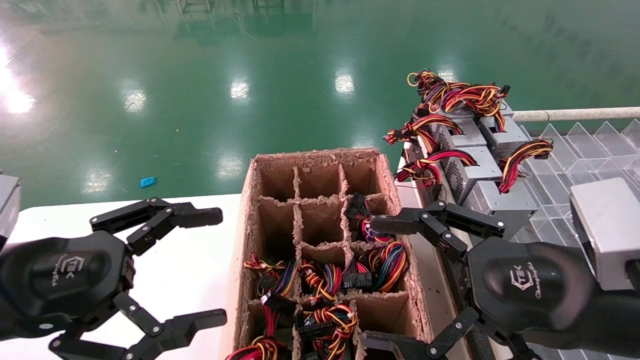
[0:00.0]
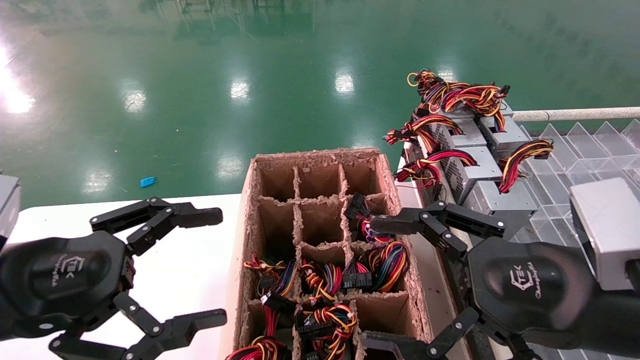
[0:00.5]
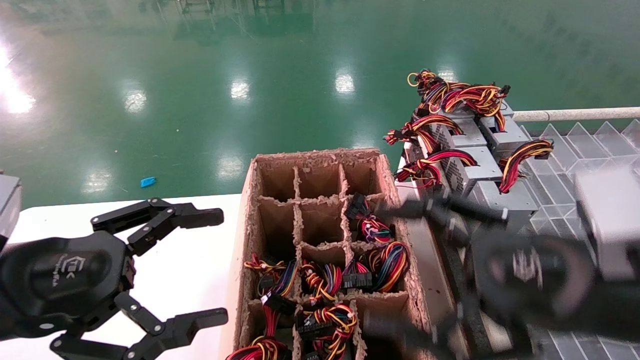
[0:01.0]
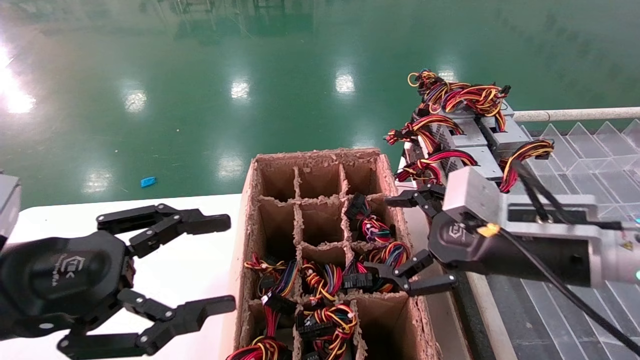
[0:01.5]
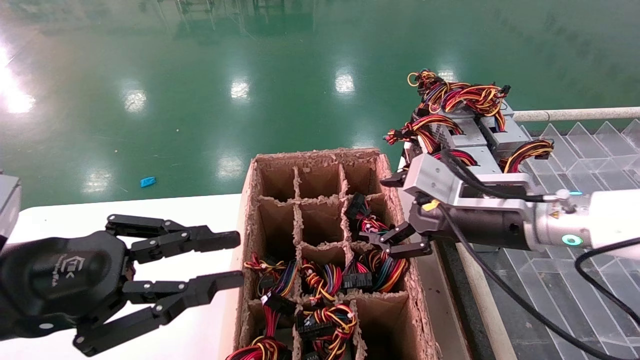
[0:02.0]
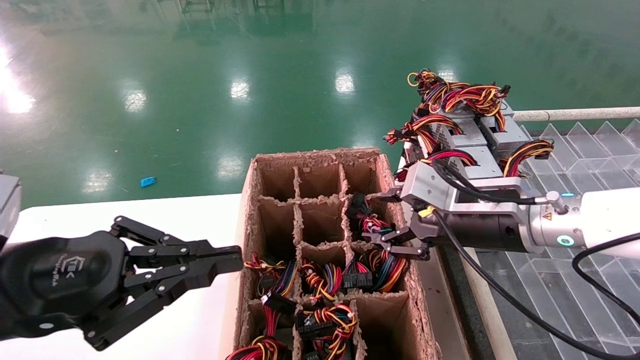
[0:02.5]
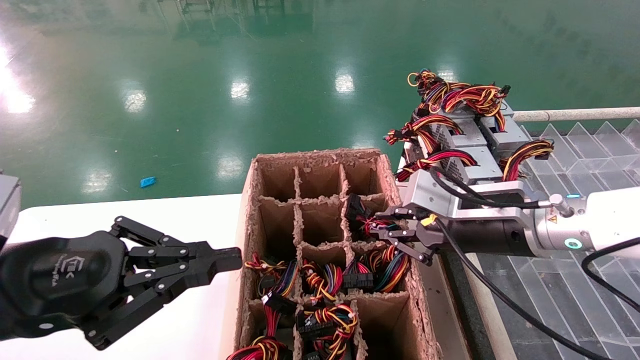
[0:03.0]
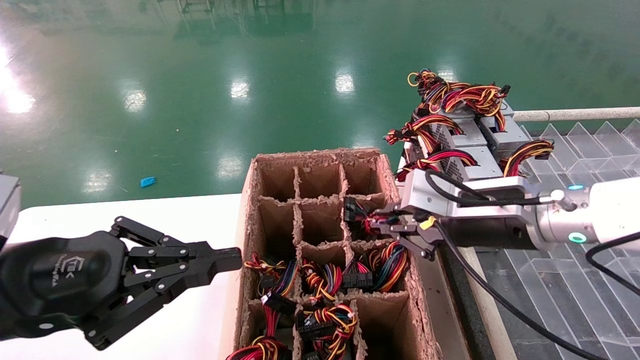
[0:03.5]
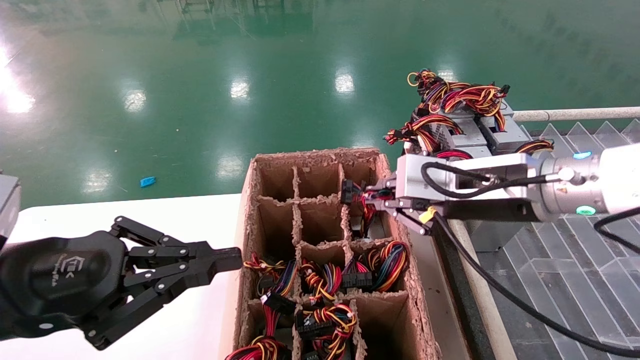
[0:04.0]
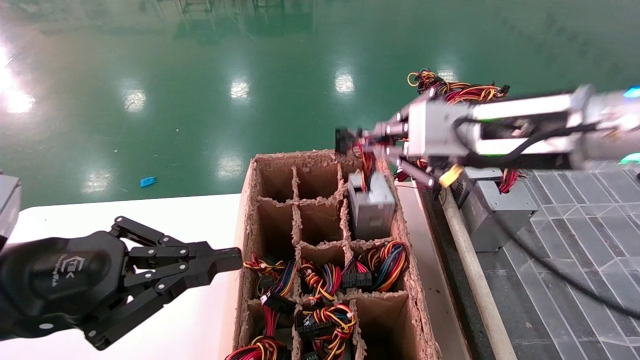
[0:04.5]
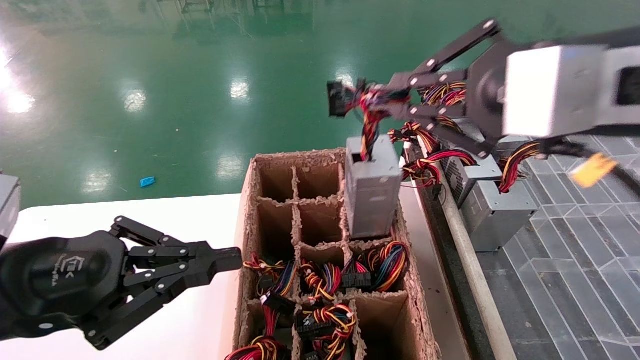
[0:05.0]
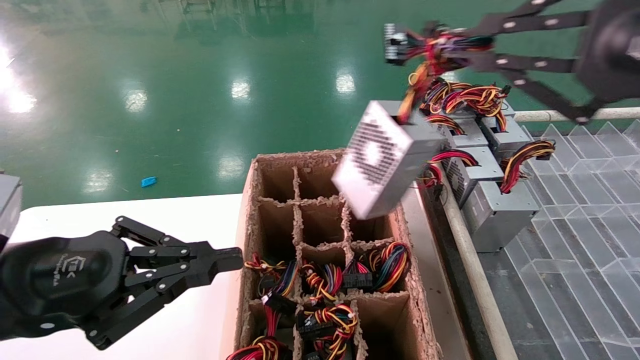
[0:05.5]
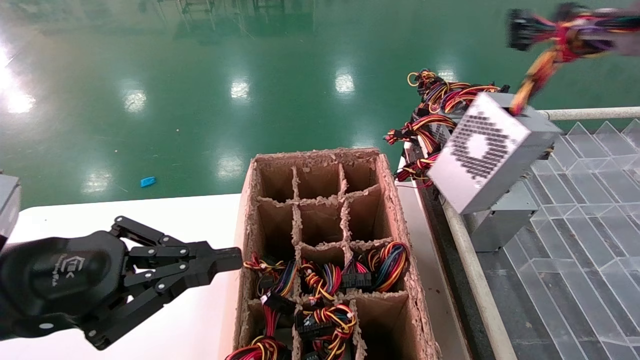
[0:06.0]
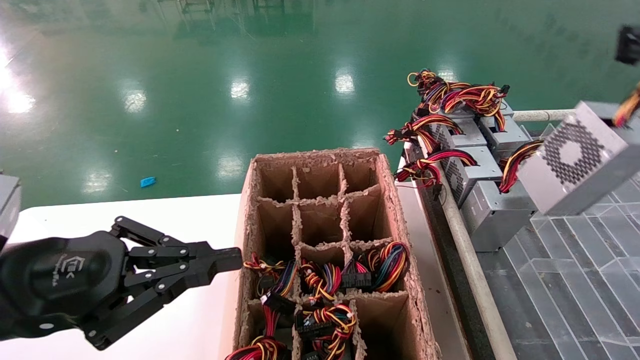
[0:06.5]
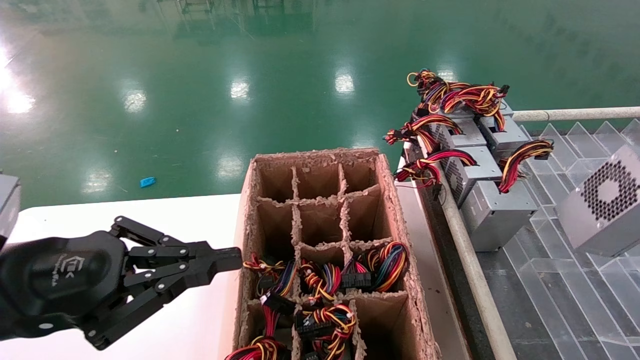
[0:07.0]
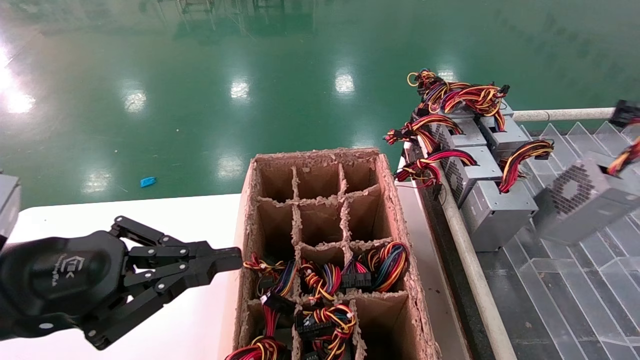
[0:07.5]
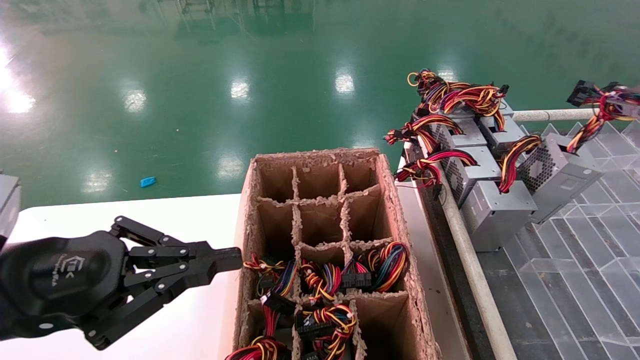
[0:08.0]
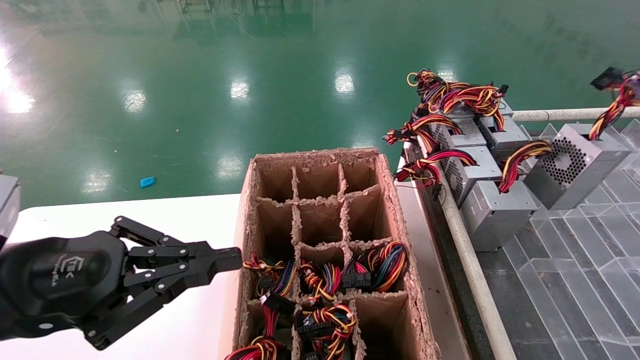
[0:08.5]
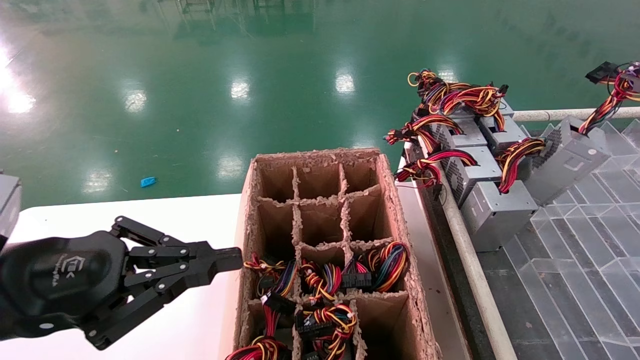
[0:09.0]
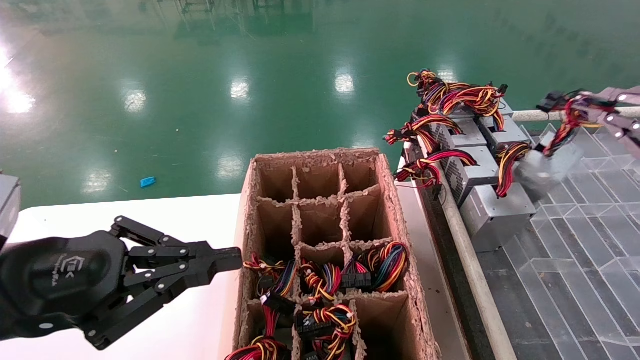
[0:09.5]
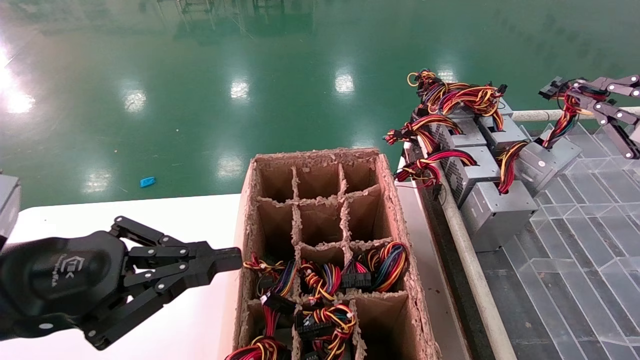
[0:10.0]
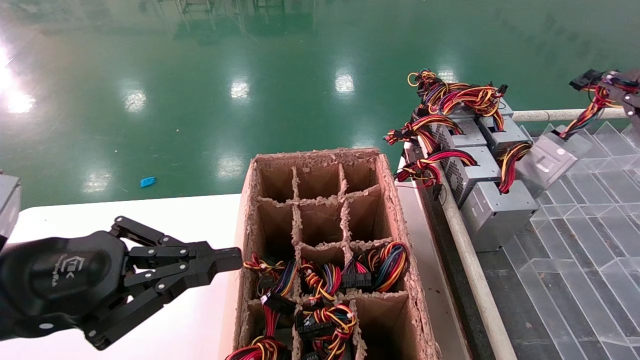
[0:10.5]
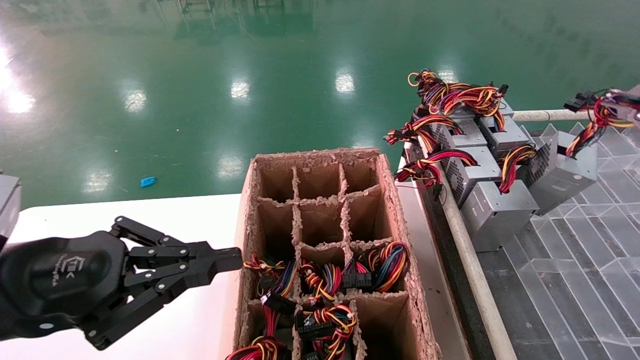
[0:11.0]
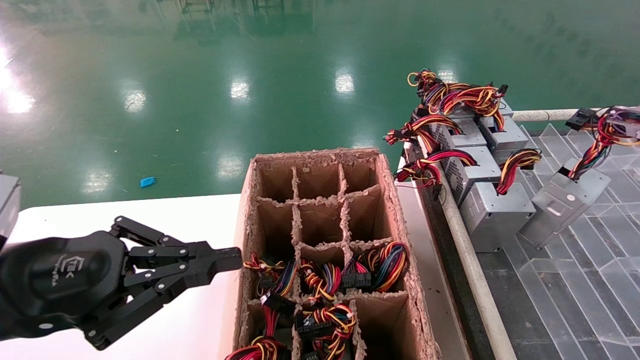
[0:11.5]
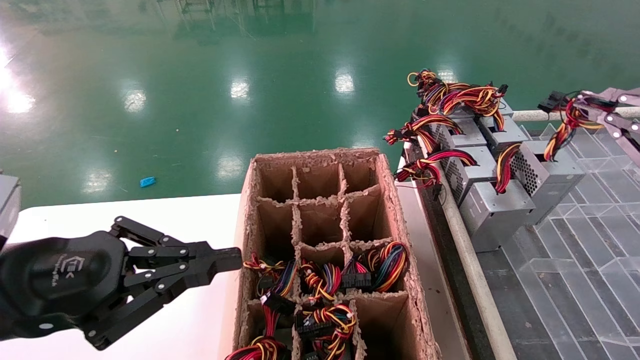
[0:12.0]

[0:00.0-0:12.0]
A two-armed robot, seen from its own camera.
Step, 0:01.5 to 0:03.0: Grab the main unit power supply from the containment box.
0:00.0 to 0:02.0: The right gripper moves forward, approximately 15 cm. The left gripper closes.
0:02.0 to 0:04.0: The right gripper is displaced upward by roughly 5 cm, and closes, while the left gripper closes.
0:04.0 to 0:06.0: The right gripper is displaced backward, to the right and upward by approximately 30 cm.
0:06.0 to 0:08.0: The right gripper goes approximately 15 cm forward, to the right and downward.
0:08.0 to 0:10.0: The right gripper ends up approximately 5 cm from where it was.

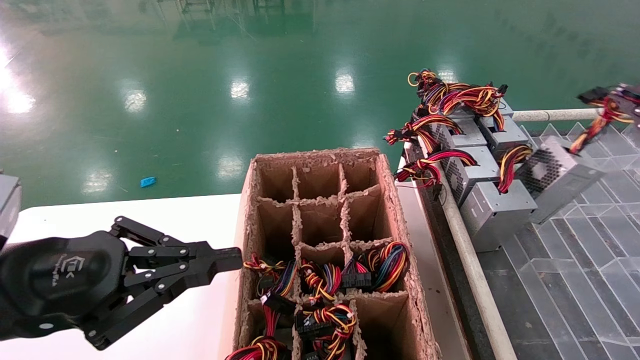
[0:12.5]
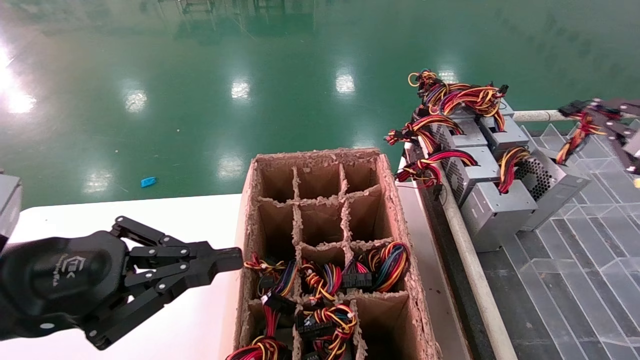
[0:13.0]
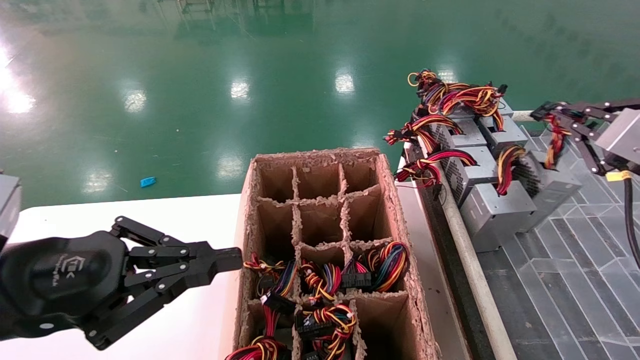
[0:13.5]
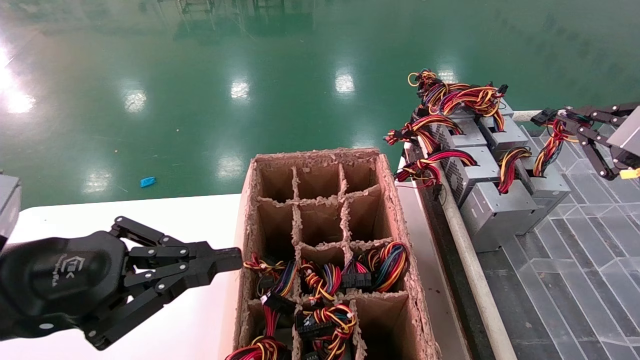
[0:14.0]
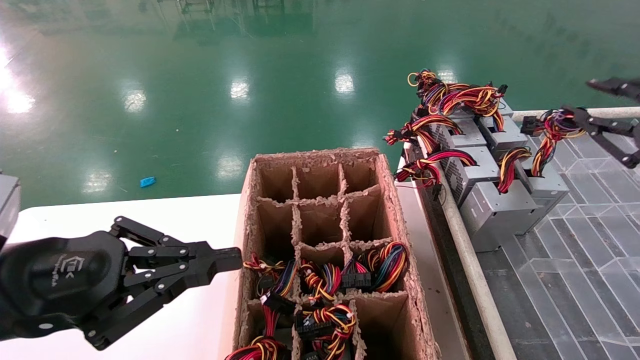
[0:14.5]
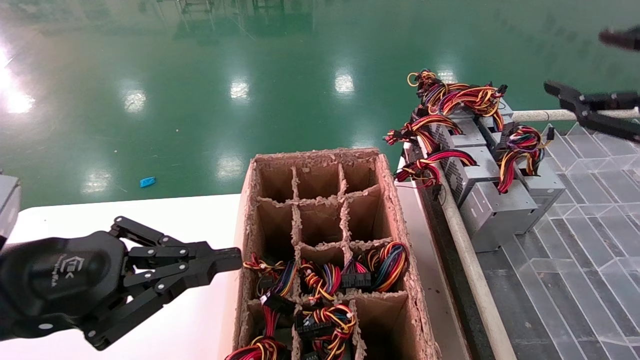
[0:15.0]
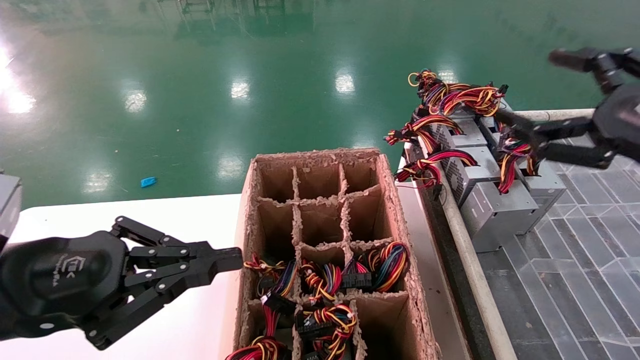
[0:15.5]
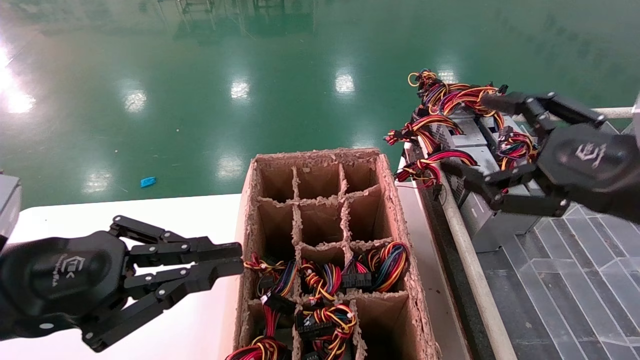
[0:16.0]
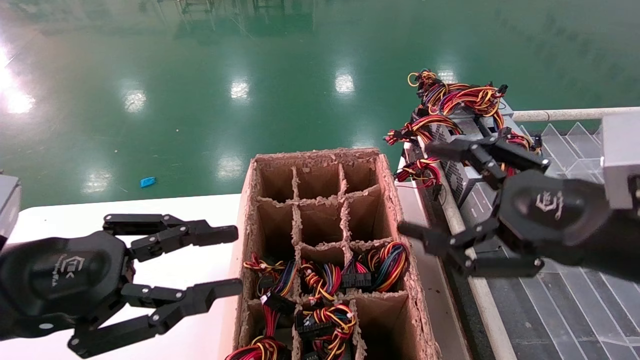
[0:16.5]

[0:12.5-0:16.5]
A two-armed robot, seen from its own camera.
Step, 0:12.5 to 0:14.5: Place the main unit power supply in the designated area.
0:14.5 to 0:16.5: The right gripper moves to the left, about 15 cm, and opens its fingers.
